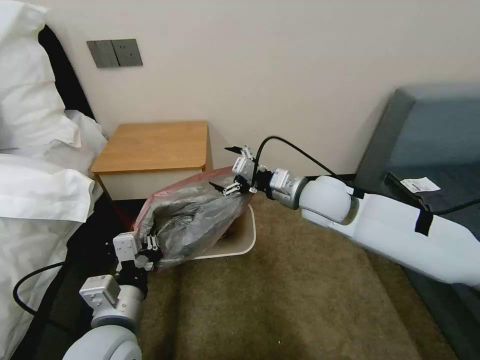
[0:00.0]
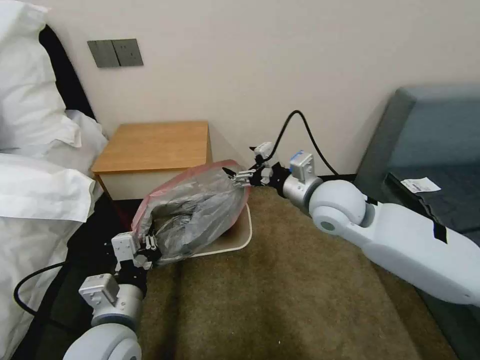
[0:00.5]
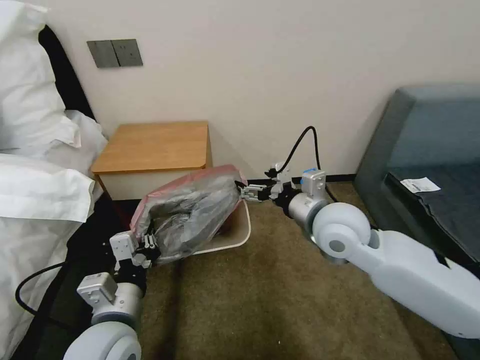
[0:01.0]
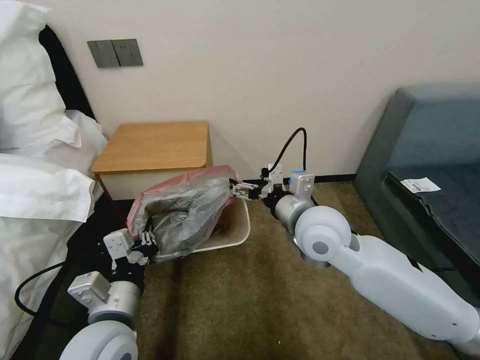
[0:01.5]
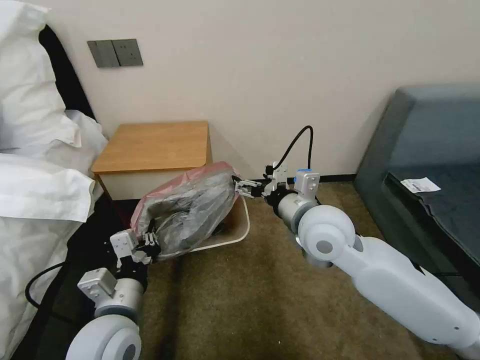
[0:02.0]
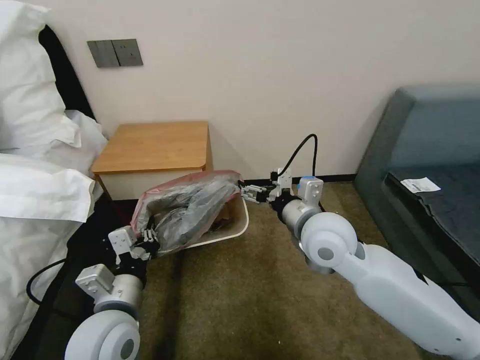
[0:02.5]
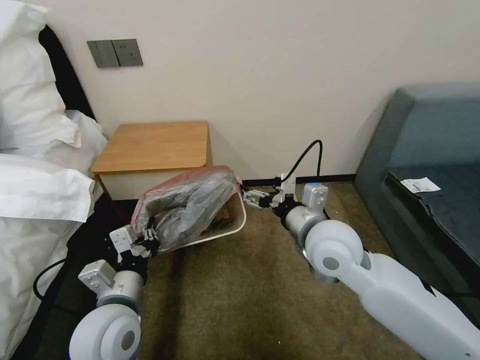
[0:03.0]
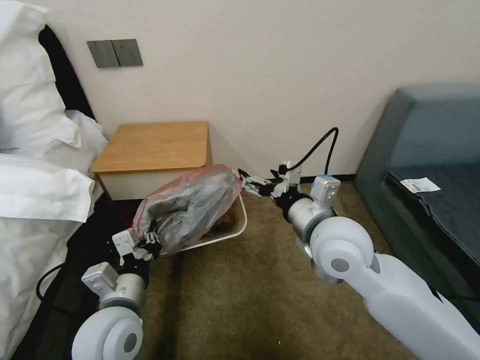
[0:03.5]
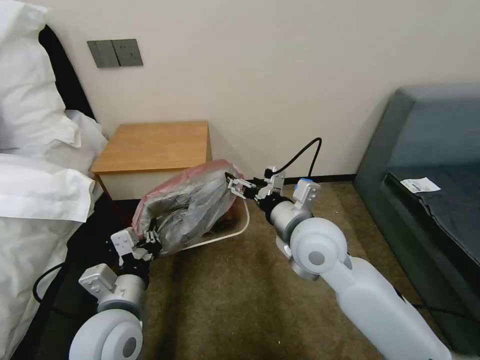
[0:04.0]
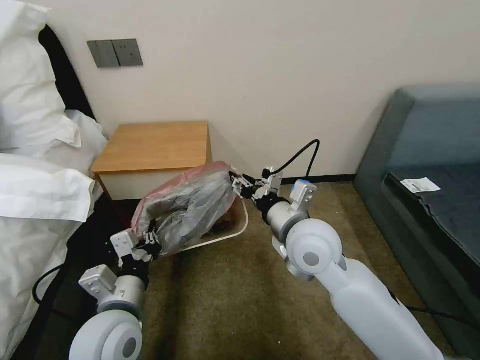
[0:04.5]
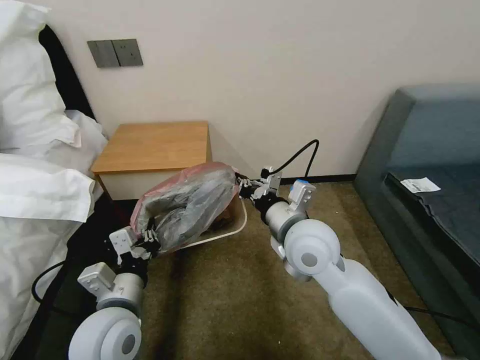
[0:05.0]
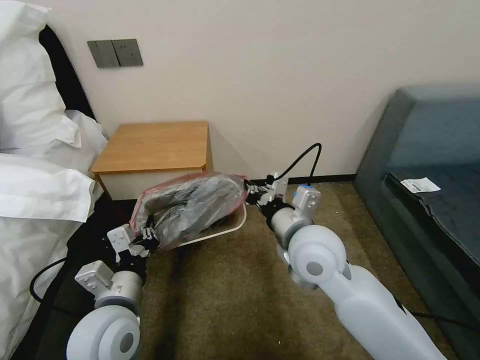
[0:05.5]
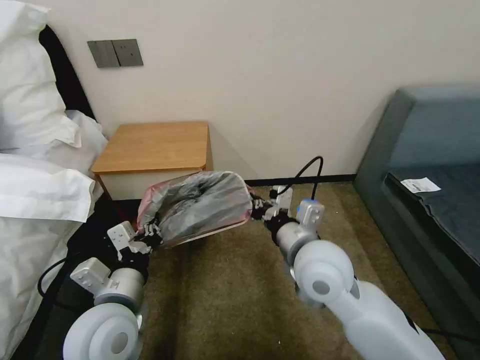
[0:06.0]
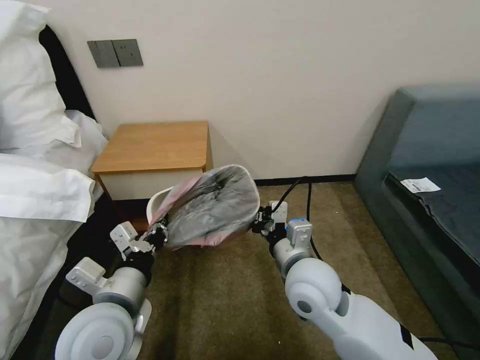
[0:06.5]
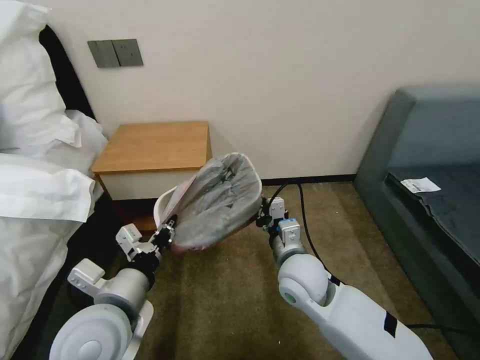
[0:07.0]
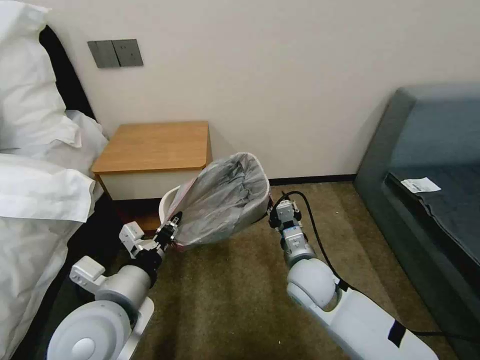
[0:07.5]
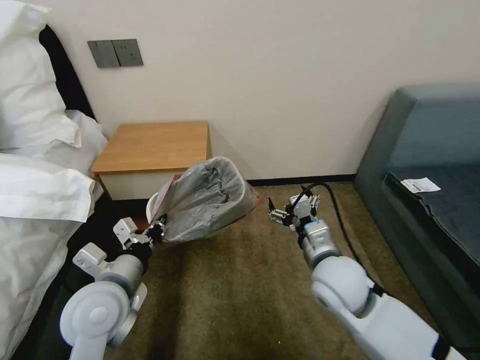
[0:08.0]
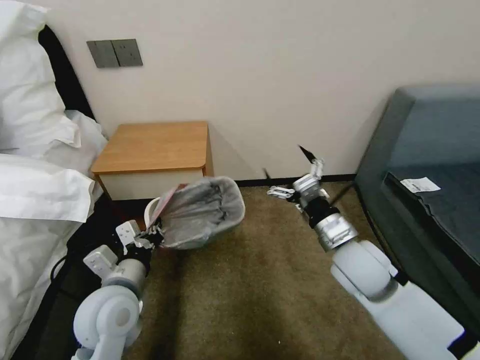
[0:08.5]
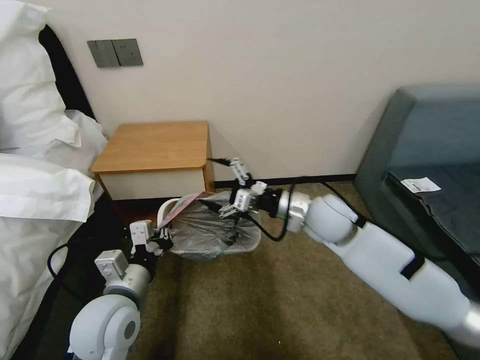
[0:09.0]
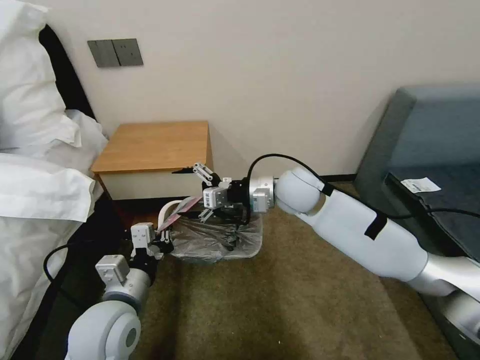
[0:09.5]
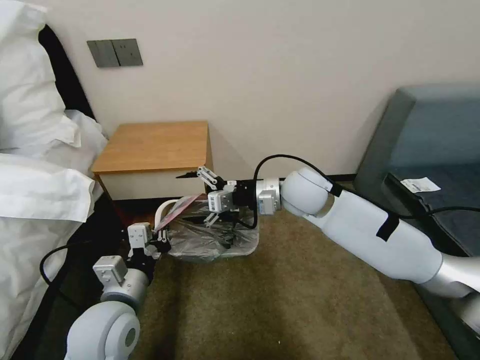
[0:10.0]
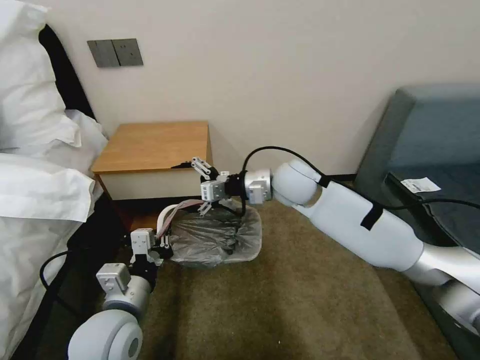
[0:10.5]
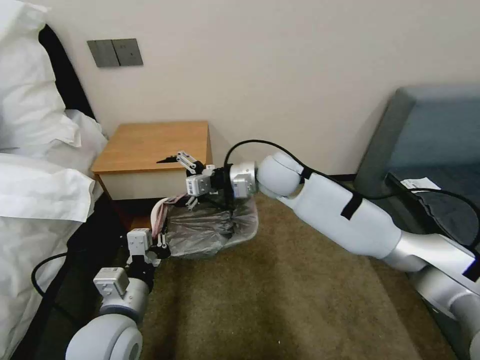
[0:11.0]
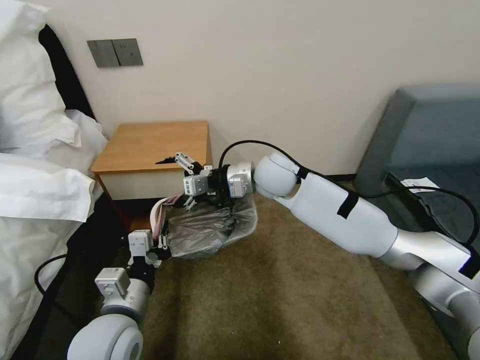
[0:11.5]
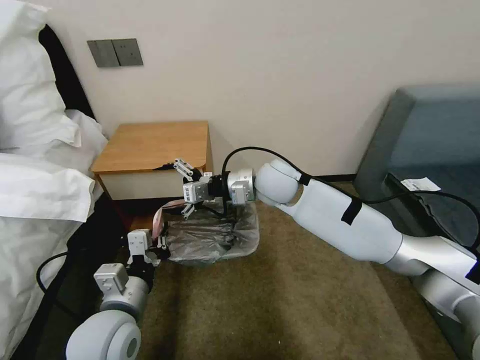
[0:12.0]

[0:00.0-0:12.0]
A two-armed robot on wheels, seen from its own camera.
Task of the whole recording: Pick up the garbage bag from the table and place it over the trash can.
0:00.0 to 0:02.0: The right gripper shifts approximately 5 cm backward.
0:02.0 to 0:04.0: The grippers make only small movements.
0:04.0 to 0:06.0: The right gripper closes up.
0:06.0 to 0:08.0: The right gripper moves downward, roughly 5 cm, and opens.
0:08.0 to 0:10.0: The right gripper goes roughly 20 cm forward and upward.
0:10.0 to 0:12.0: The right gripper goes some 5 cm to the left.

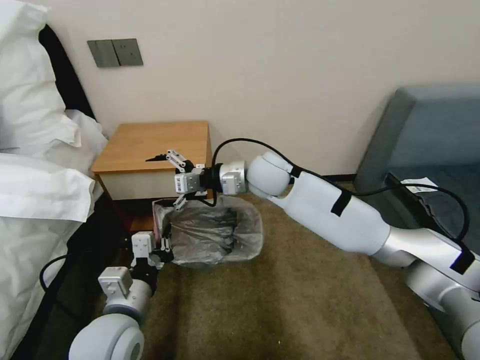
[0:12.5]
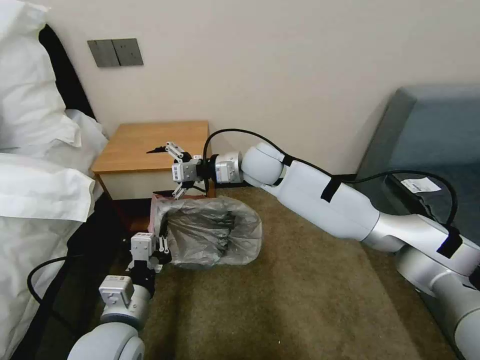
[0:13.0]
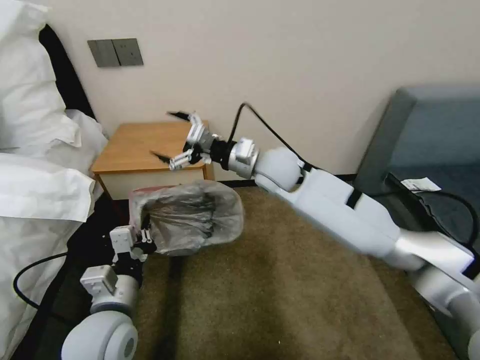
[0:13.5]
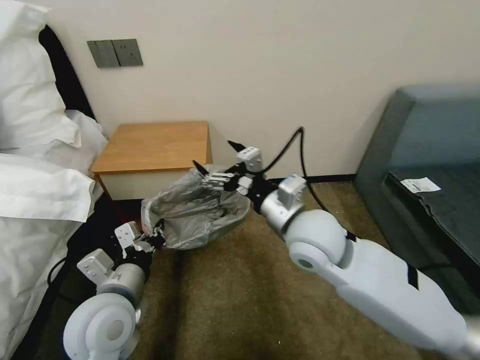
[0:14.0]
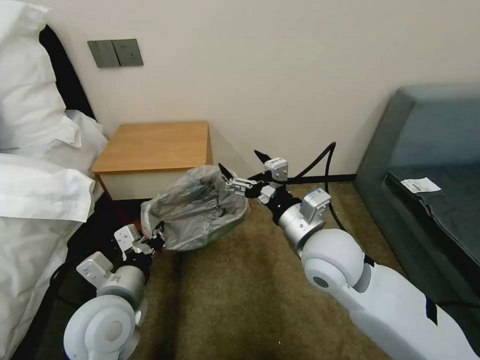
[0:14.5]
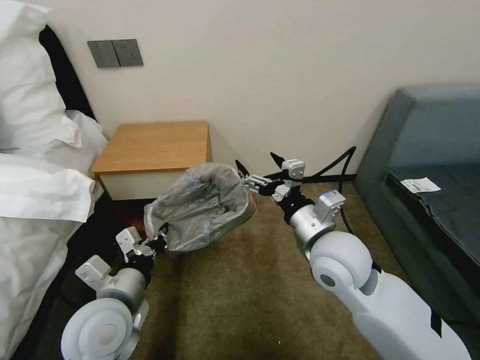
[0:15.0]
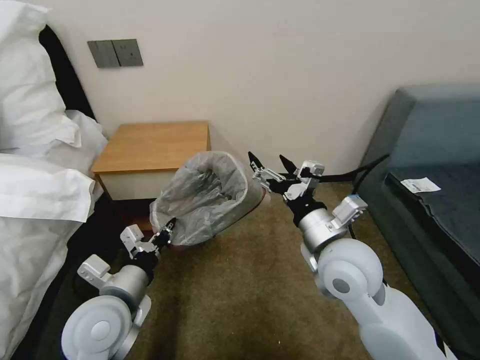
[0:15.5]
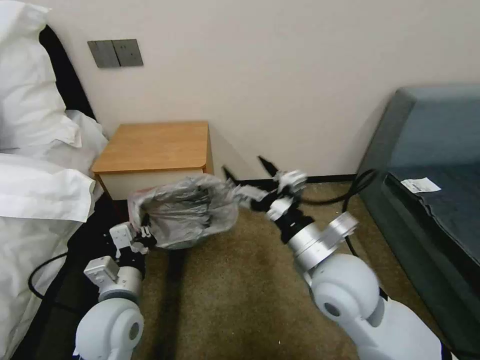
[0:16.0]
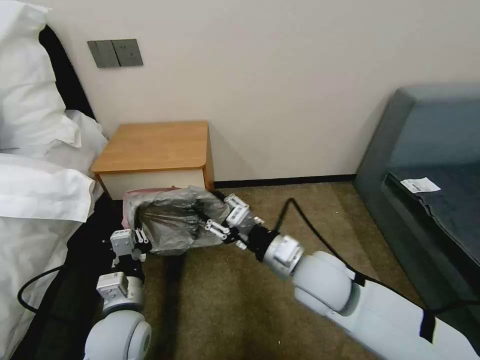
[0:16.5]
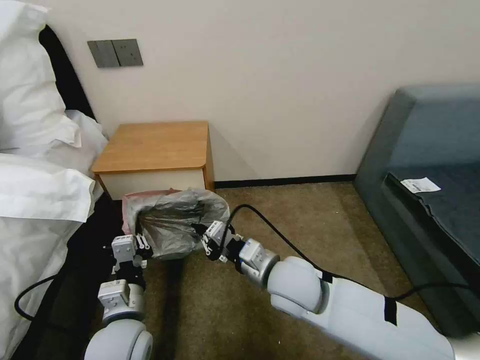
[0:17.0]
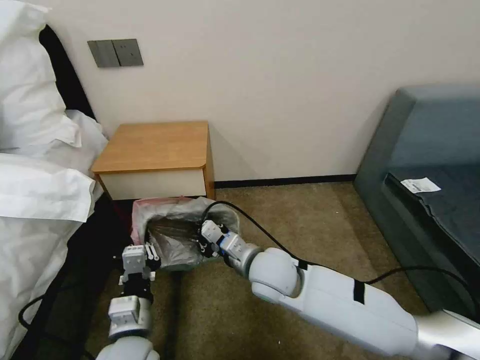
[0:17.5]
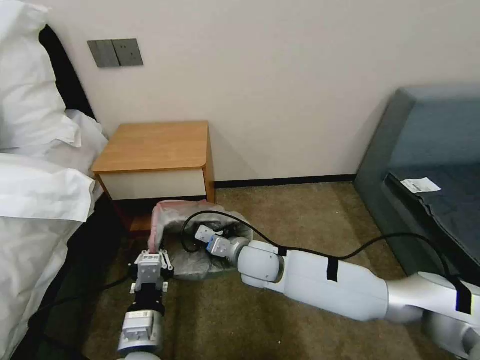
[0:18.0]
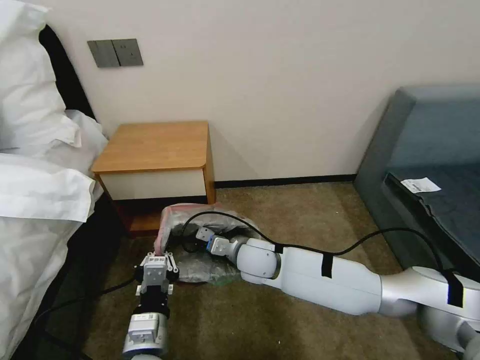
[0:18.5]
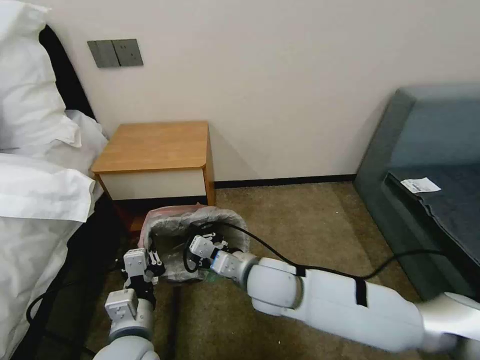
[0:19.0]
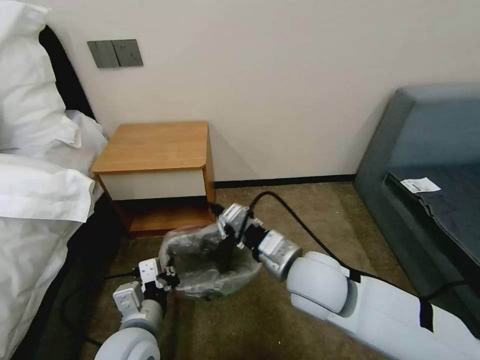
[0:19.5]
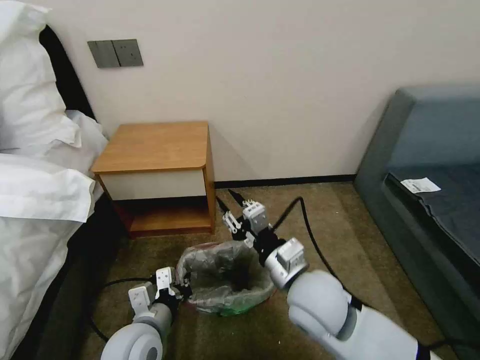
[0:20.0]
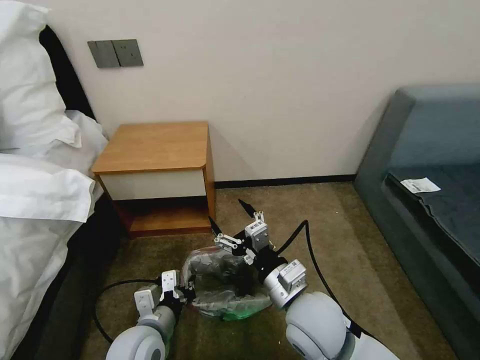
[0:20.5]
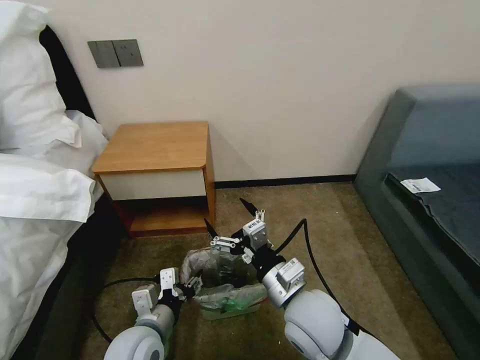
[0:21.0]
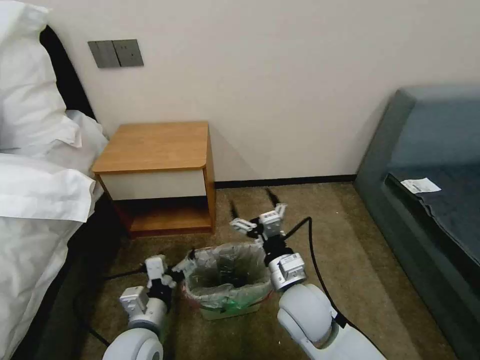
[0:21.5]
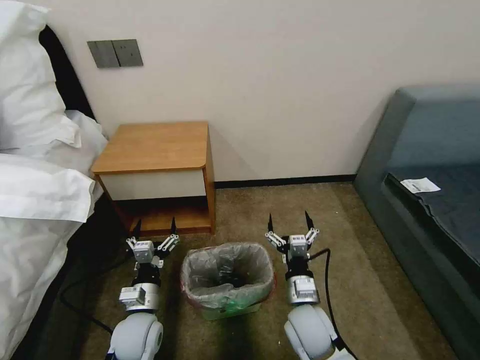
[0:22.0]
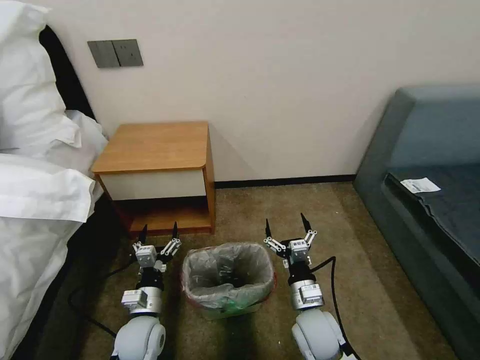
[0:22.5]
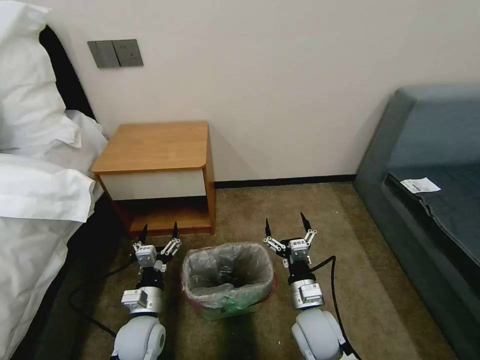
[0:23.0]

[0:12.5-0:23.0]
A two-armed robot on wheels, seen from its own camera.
Task of the whole recording: Pick up the garbage bag from the table and place it over the trash can.
0:12.5 to 0:14.5: The right gripper travels backward and to the right by about 20 cm.
0:14.5 to 0:16.5: The two grippers go about 5 cm downward. The right gripper closes.
0:16.5 to 0:19.0: The left gripper moves roughly 5 cm. Meanwhile the right gripper shifts about 10 cm to the left, and closes up.
0:19.0 to 0:21.0: The left gripper shifts by about 5 cm, and opens, while the right gripper moves backward and to the right, about 10 cm, and opens up.
0:21.0 to 0:23.0: The right gripper travels downward by about 15 cm, while the left gripper shifts some 10 cm downward.
